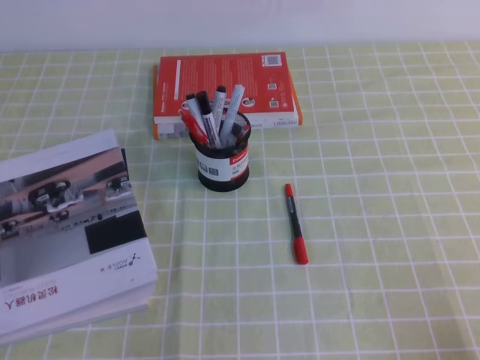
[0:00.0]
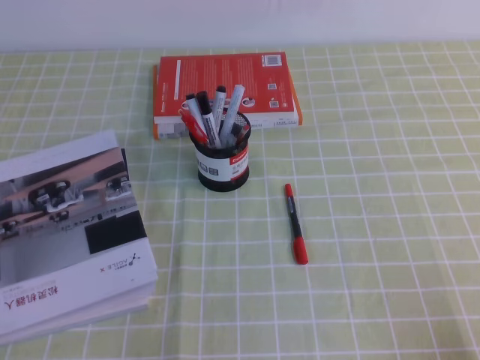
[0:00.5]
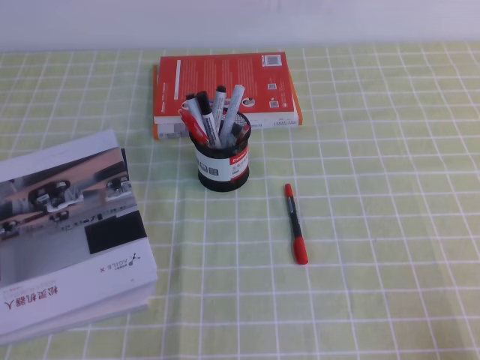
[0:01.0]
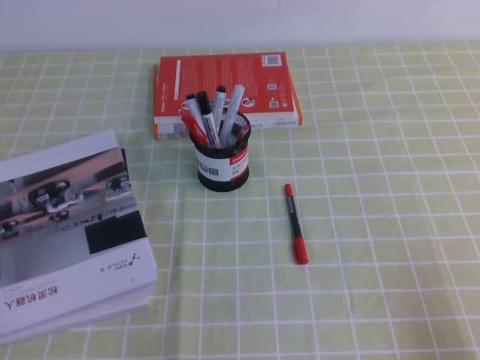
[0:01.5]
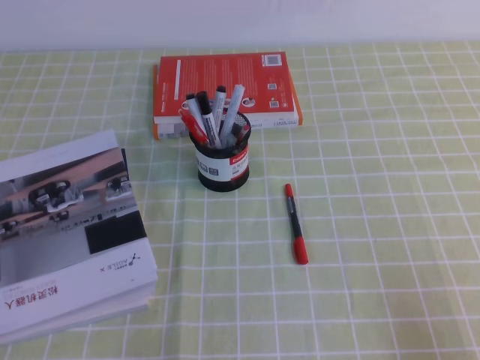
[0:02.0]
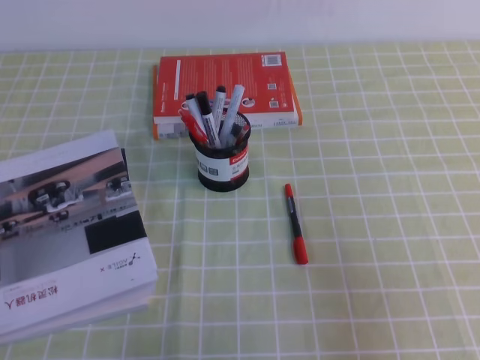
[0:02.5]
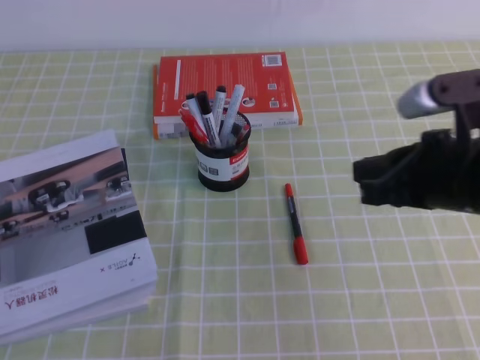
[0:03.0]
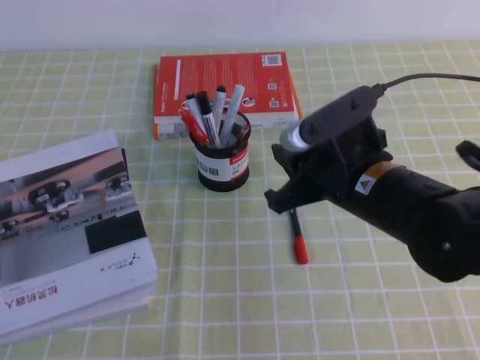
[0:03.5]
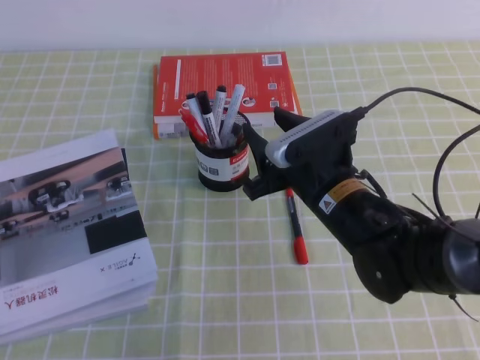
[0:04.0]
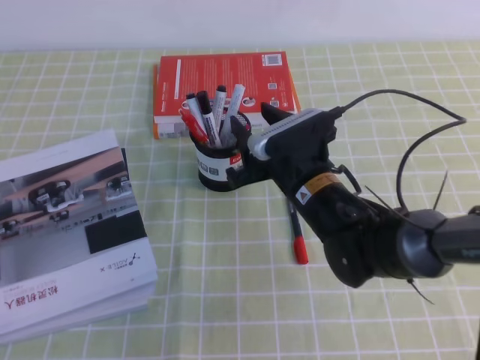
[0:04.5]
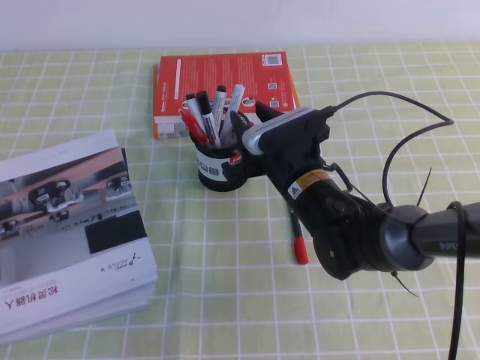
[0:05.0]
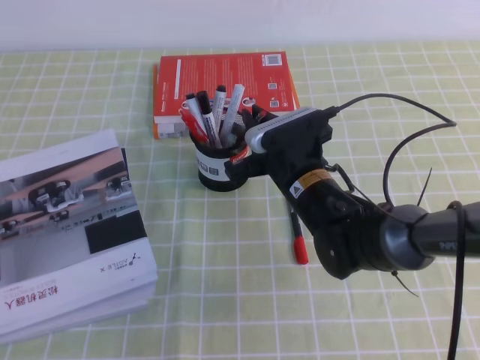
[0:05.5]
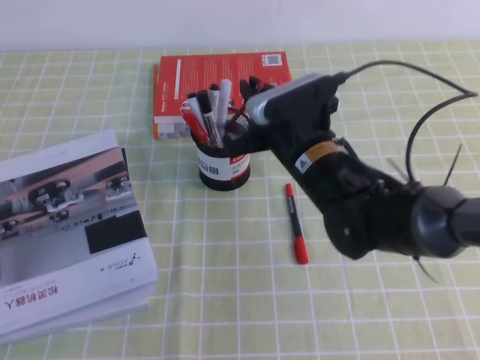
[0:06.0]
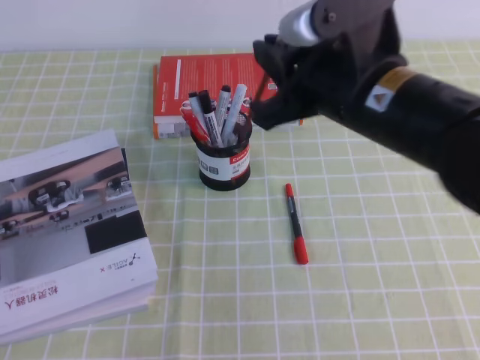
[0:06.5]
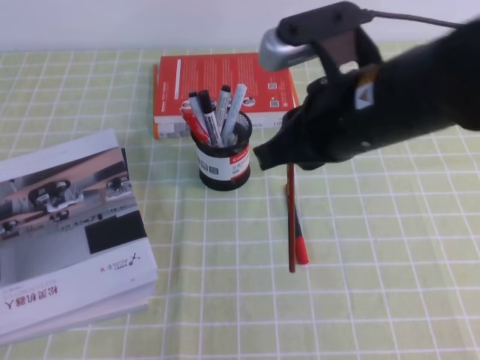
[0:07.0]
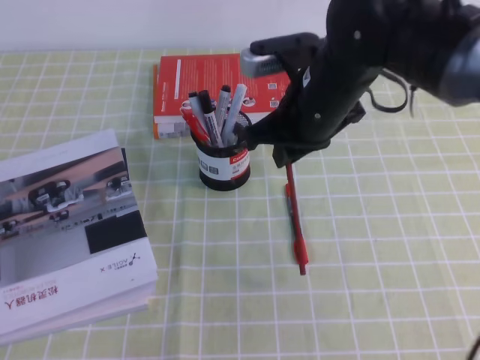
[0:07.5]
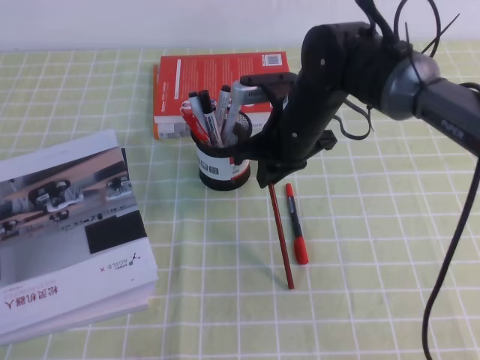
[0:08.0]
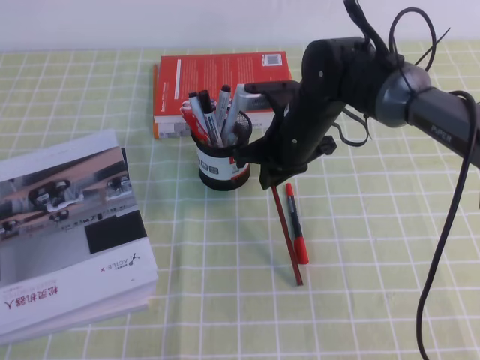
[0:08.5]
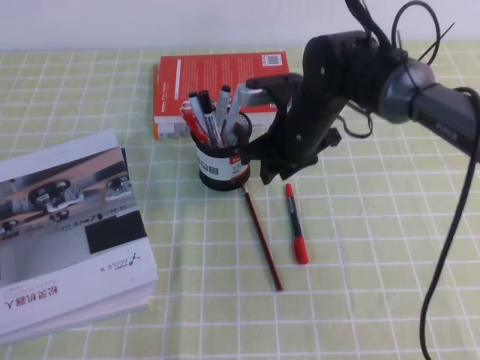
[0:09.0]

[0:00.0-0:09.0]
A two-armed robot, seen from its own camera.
0:02.0 to 0:04.5: The right gripper shifts roughly 35 cm forward and to the left, and opens.
0:04.5 to 0:07.0: The right gripper moves upward, approximately 15 cm, and closes its fingers.
0:07.0 to 0:09.0: The right gripper is displaced forward and downward by roughly 20 cm, and opens.

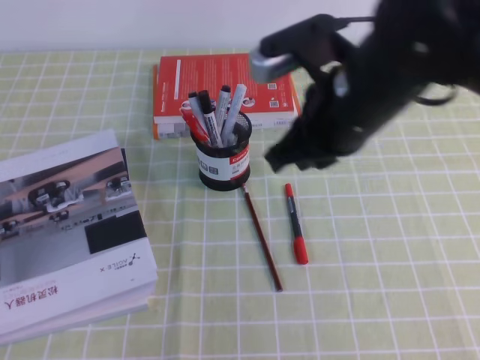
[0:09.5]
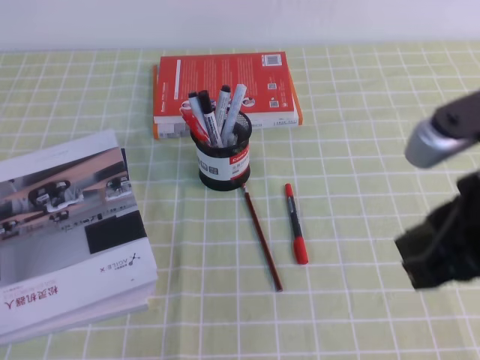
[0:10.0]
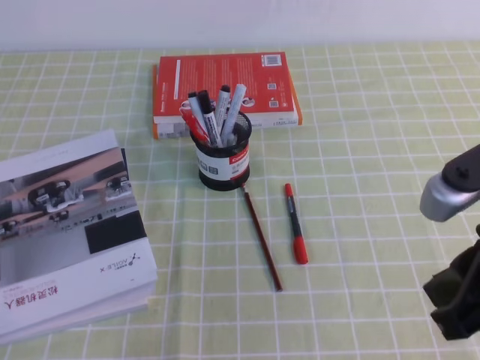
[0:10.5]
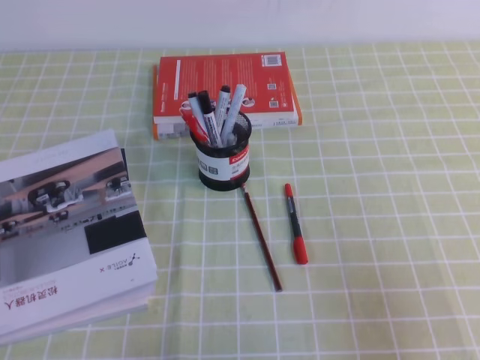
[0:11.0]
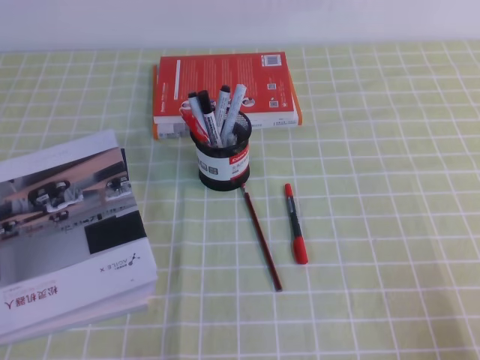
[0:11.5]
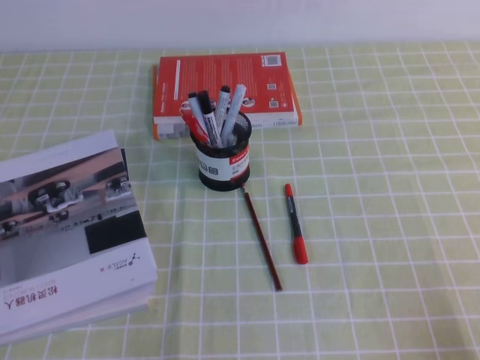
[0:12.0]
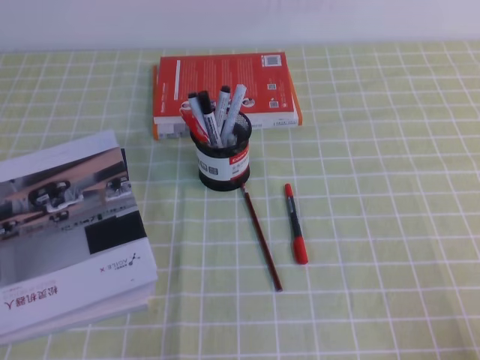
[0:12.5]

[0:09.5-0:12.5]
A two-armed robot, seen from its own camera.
Step, 0:09.5 to 0:12.5: Pick up the pen from the pen holder.
0:09.5 to 0:11.0: The right gripper is displaced to the right, backward and downward by roughly 25 cm.
0:11.0 to 0:12.5: The right gripper heads downward and backward, covering about 15 cm.
